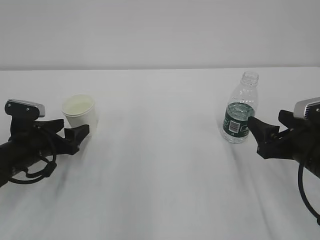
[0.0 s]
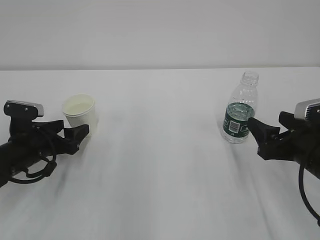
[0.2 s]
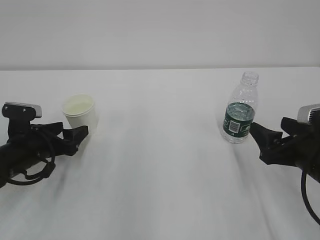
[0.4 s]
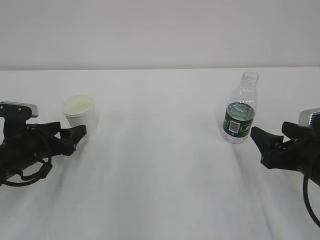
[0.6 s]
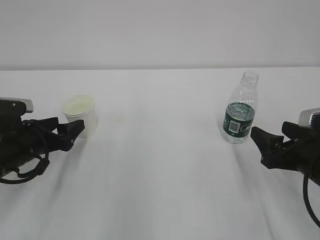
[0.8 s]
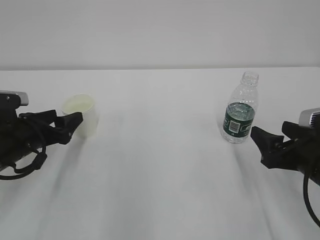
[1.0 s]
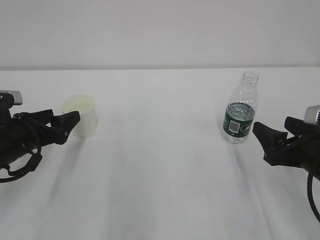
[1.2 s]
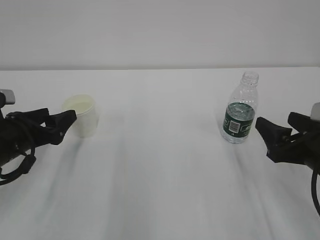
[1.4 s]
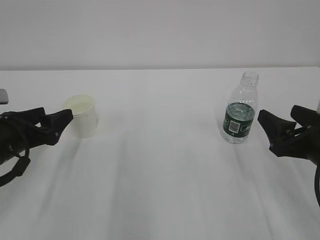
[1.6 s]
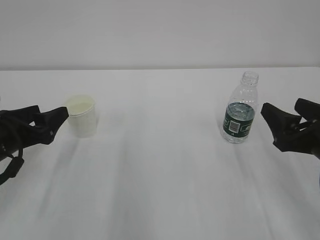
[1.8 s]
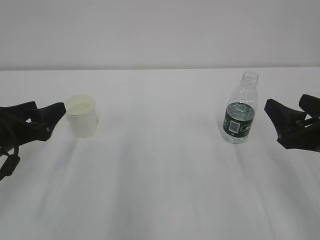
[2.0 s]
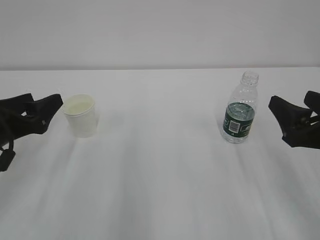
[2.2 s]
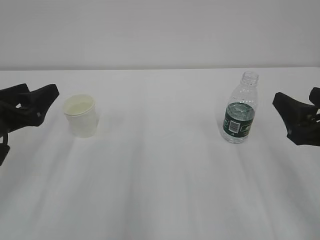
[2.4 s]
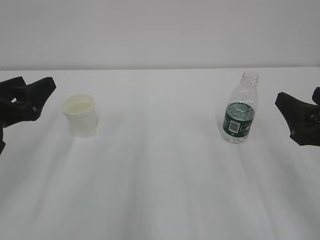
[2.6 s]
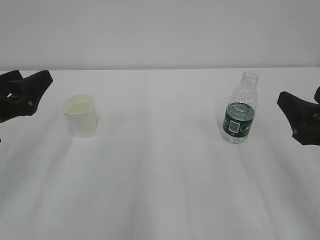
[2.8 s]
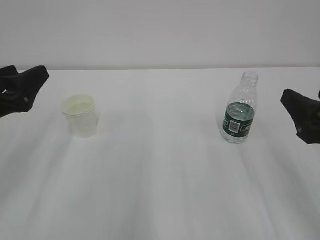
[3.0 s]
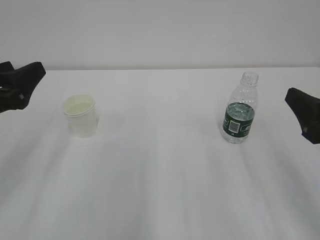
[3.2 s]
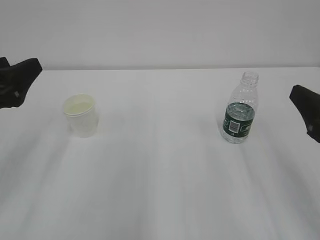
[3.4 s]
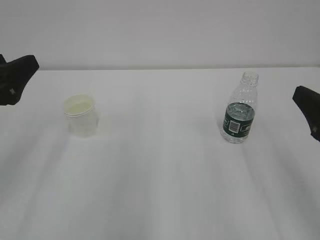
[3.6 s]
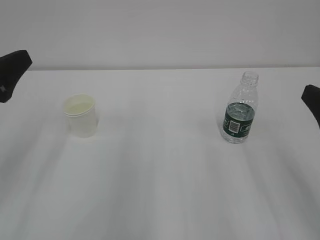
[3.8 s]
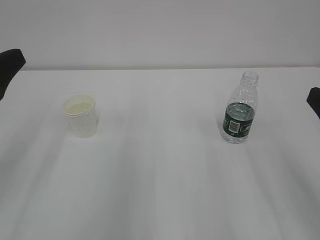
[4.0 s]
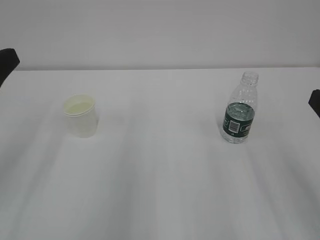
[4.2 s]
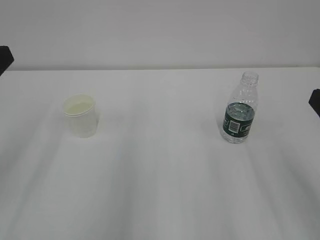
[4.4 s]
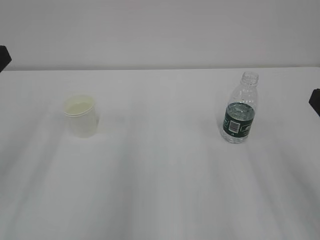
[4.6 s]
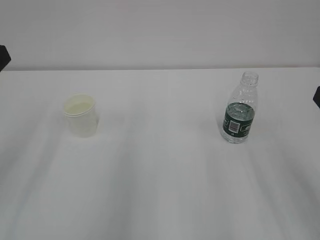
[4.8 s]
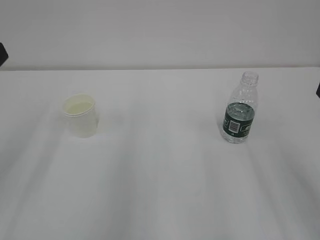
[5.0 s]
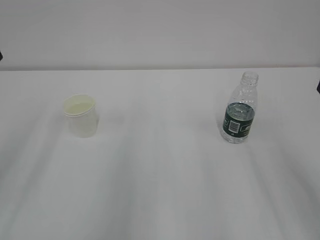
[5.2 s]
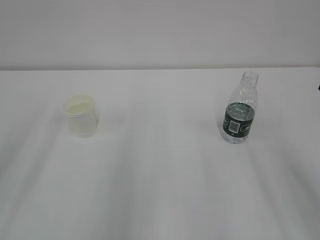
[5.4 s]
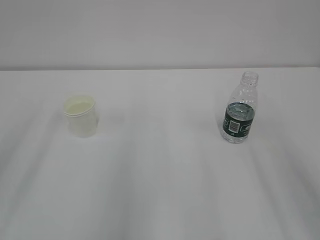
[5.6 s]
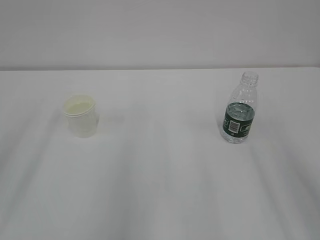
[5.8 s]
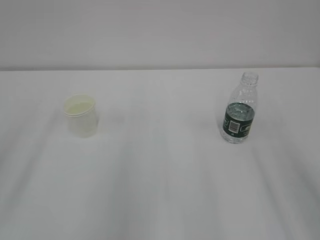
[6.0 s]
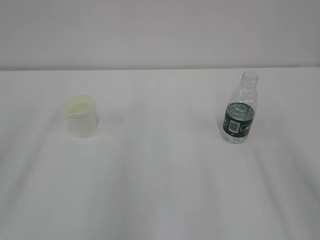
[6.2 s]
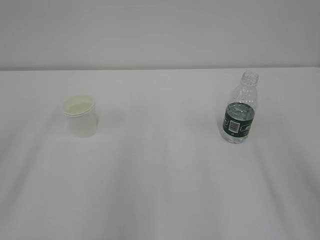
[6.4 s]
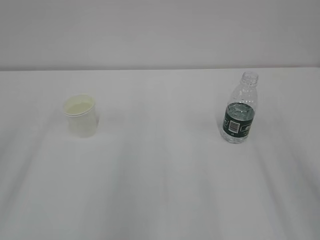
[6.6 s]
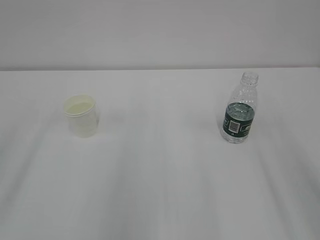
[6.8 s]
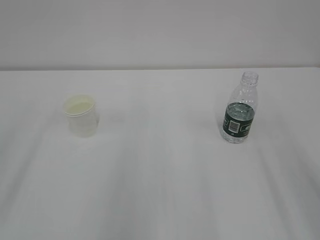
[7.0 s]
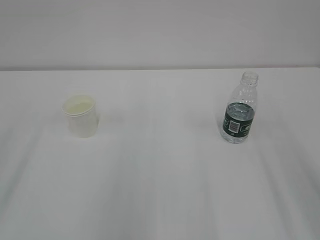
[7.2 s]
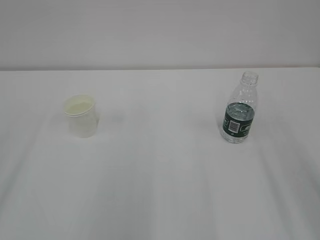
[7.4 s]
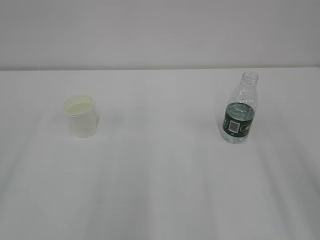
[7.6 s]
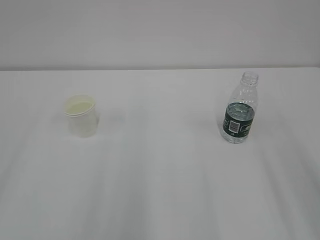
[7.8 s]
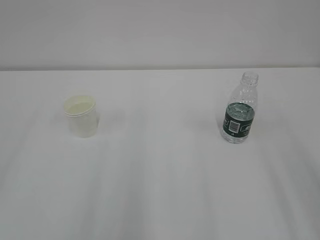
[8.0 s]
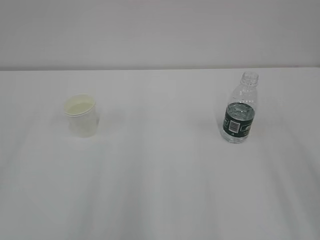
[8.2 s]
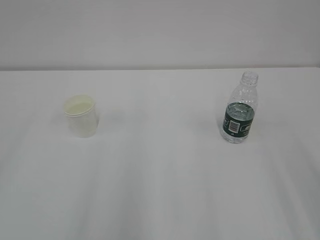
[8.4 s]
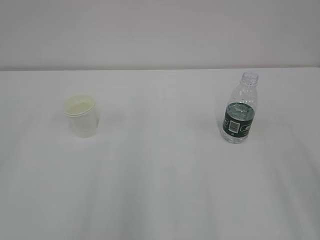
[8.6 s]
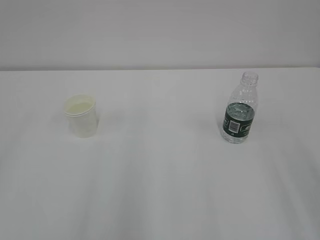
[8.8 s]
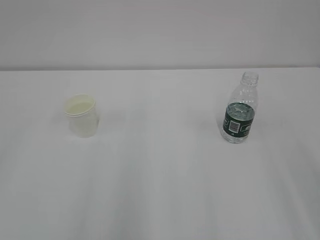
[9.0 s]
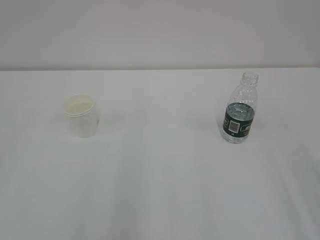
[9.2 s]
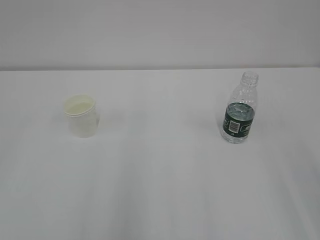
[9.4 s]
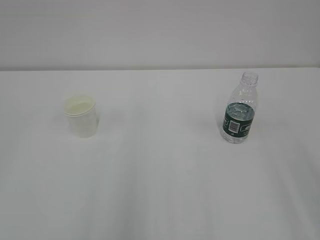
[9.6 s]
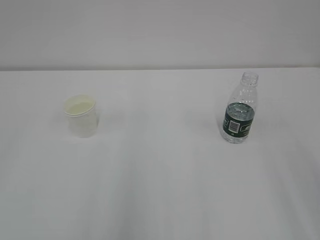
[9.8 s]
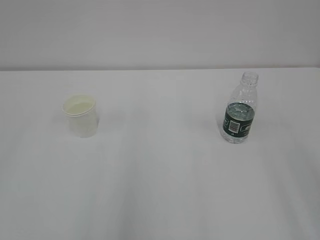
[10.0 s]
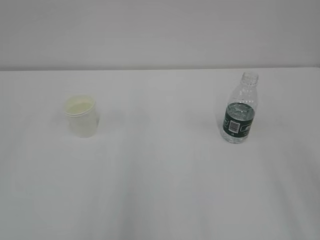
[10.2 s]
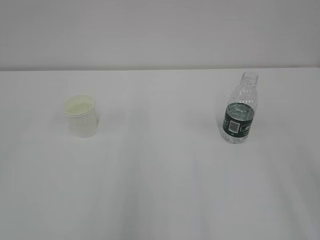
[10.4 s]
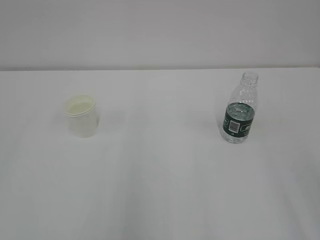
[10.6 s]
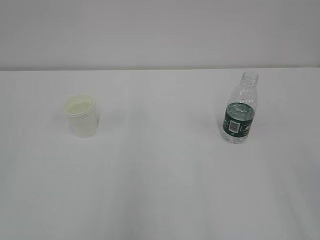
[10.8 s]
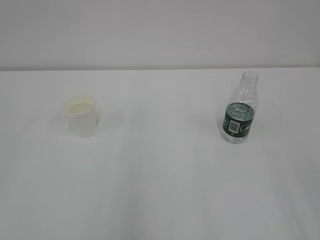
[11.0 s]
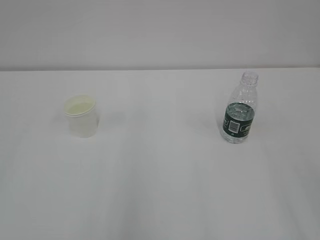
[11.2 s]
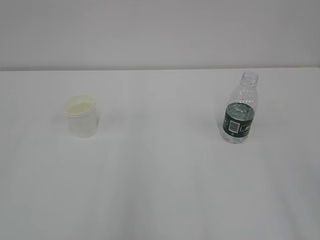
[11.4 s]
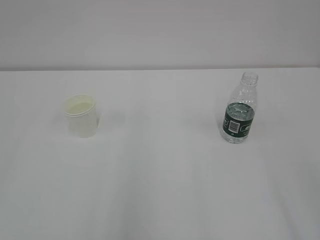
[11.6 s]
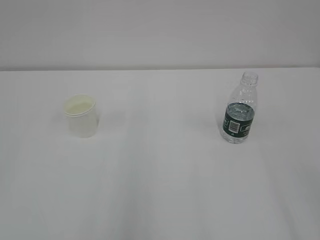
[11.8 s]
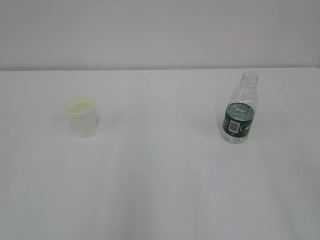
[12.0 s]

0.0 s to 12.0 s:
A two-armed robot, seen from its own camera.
0.0 to 1.6 s: The left gripper moves upward, approximately 5 cm.
1.6 to 3.0 s: The two grippers go some 5 cm upward.
3.0 to 4.4 s: The left gripper heads upward and backward, covering approximately 10 cm, while the right gripper changes place by some 5 cm.
